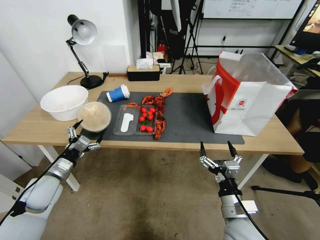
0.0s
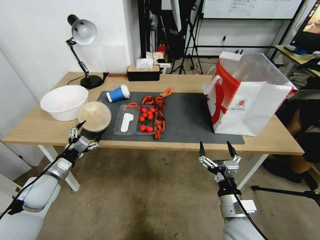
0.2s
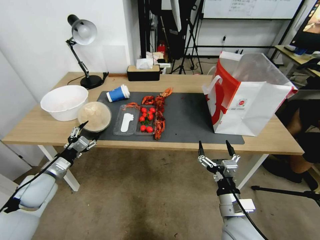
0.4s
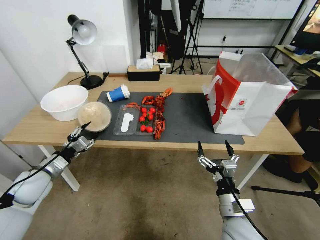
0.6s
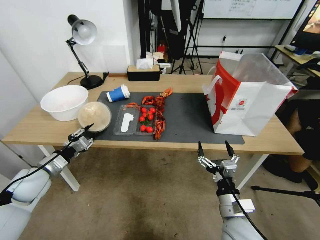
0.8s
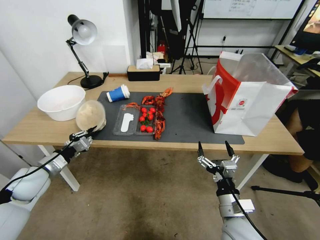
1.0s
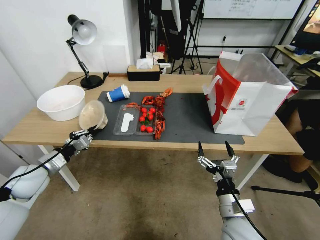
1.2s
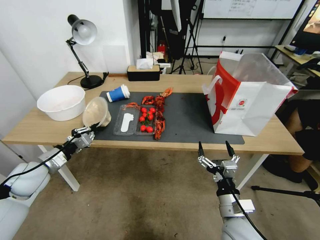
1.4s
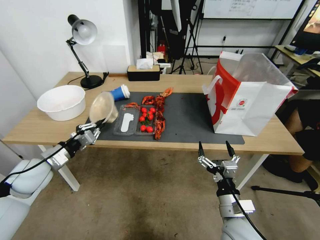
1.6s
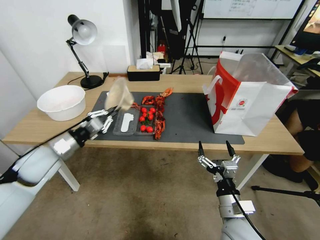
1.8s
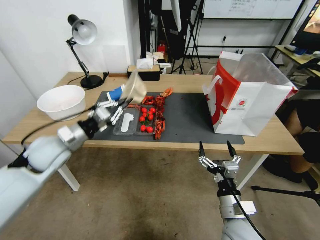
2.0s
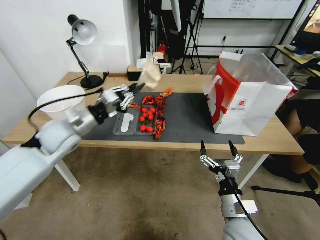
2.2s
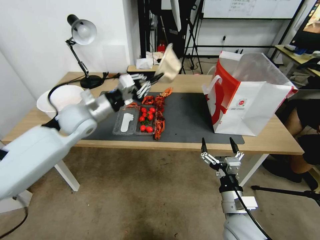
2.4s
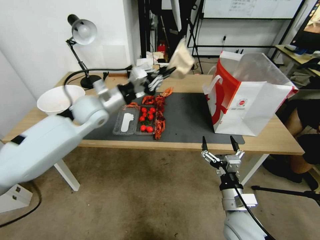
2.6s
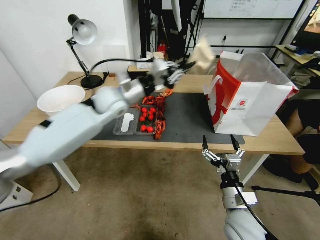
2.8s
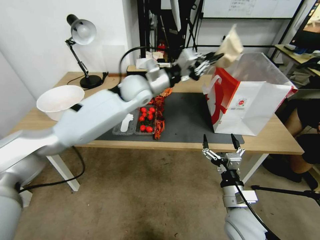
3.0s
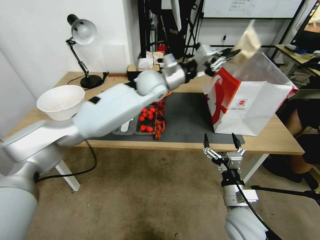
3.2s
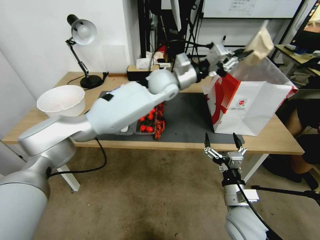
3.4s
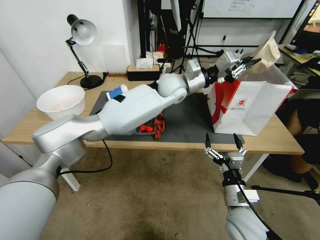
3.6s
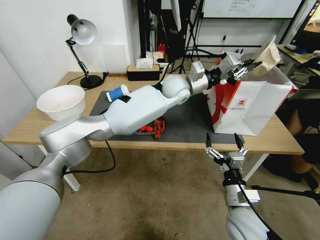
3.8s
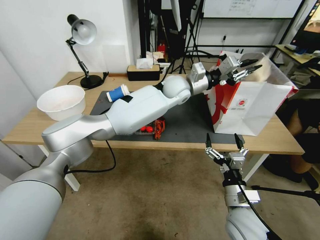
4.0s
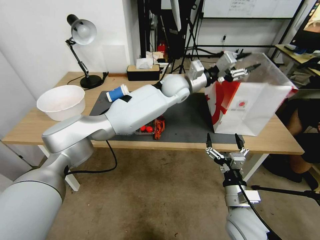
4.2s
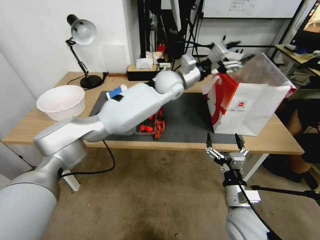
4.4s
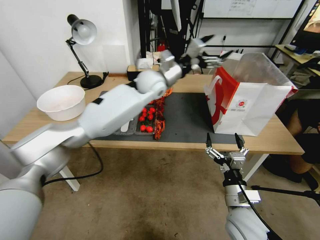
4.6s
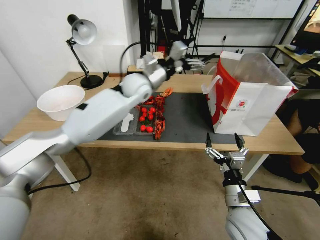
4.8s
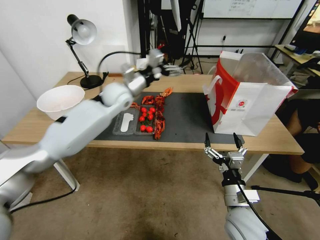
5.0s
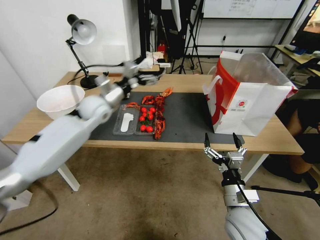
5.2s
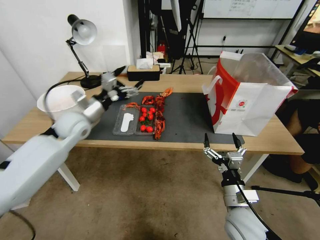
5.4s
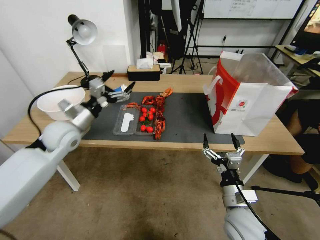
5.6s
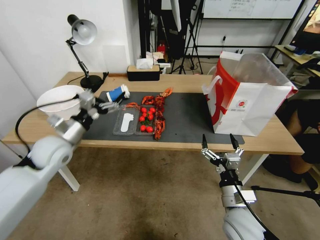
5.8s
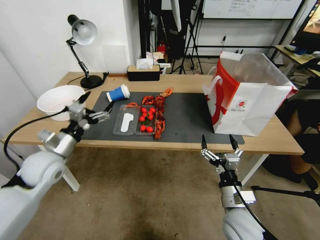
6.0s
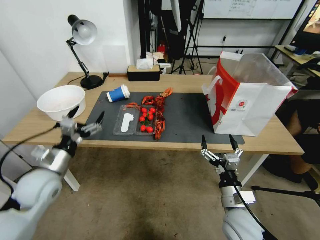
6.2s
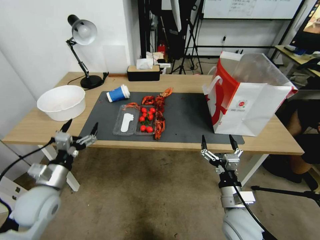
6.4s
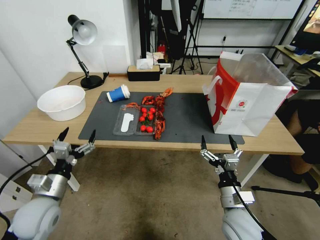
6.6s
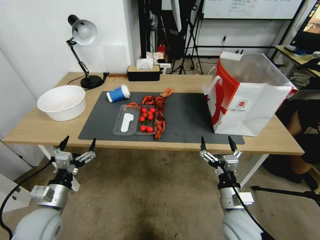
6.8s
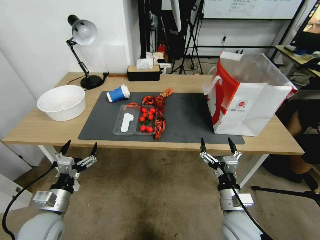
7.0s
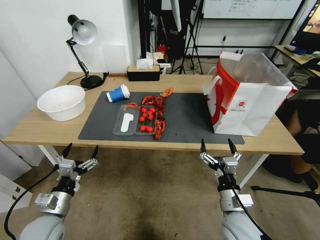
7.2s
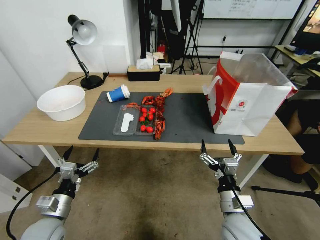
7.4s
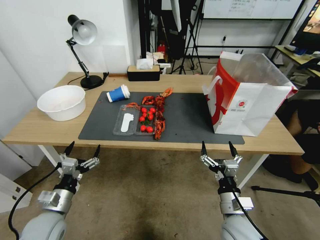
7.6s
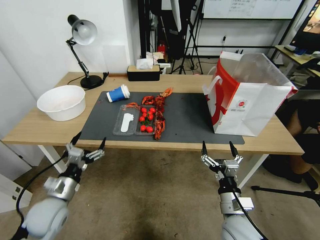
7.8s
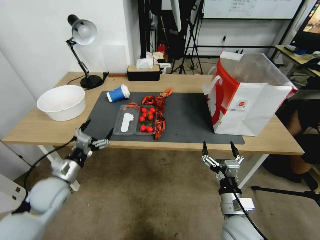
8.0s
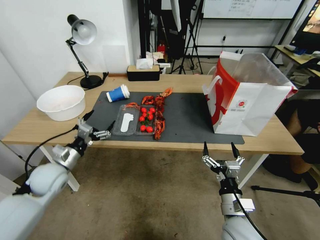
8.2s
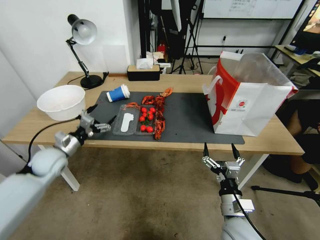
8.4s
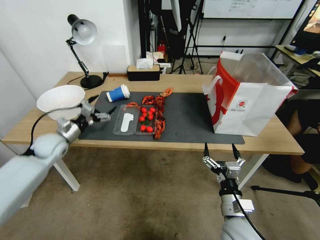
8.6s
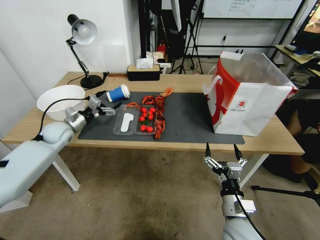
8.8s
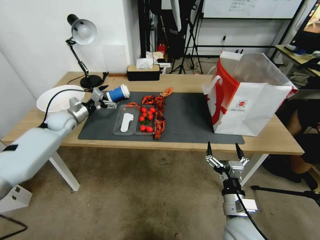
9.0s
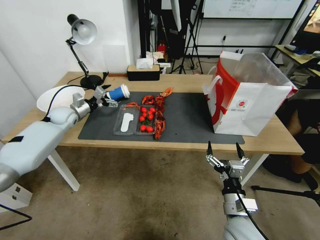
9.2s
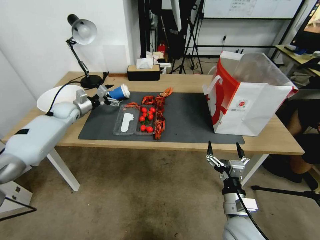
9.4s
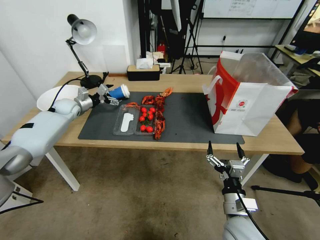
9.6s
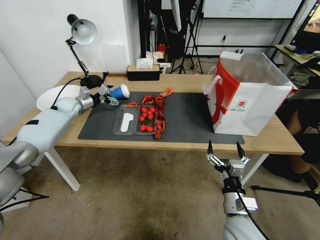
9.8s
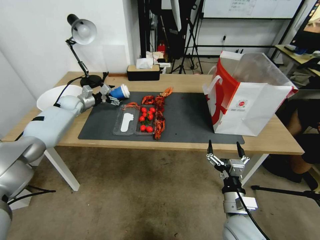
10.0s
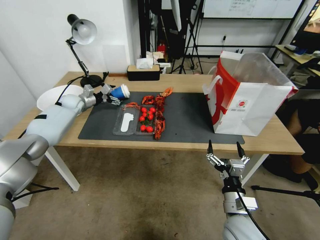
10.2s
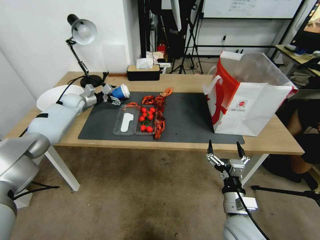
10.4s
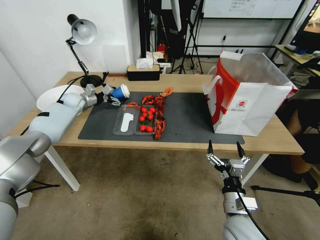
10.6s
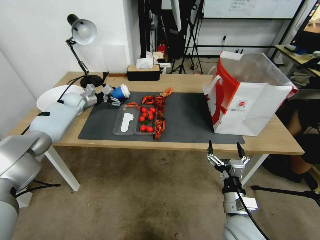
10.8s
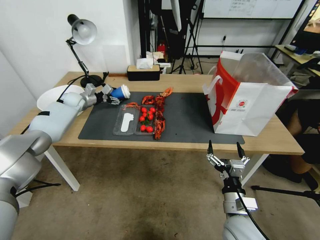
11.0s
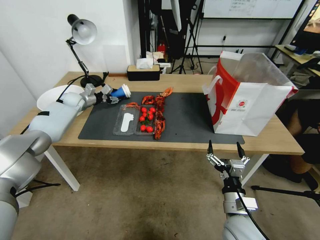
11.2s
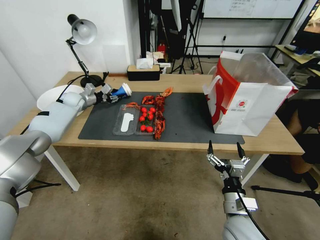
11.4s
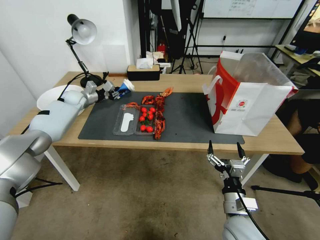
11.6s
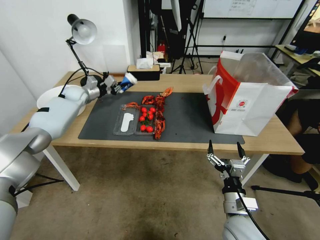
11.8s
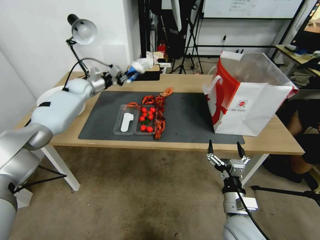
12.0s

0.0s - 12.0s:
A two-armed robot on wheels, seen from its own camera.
0.0s - 1.6s: The left gripper goes roughly 5 cm upward, and closes its fingers.
1.6s - 3.0s: The left gripper is displaced to the right, forward and upward by roughly 40 cm.
3.0s - 4.4s: The left gripper travels to the right by about 15 cm, and opens up.
4.4s - 6.0s: The left gripper goes approximately 40 cm to the left and backward, and opens.
6.0s - 7.6s: The left gripper travels backward and downward by some 20 cm.
7.6s - 9.0s: The left gripper travels forward by roughly 35 cm.
9.0s - 10.4s: The left gripper shifts approximately 10 cm forward.
10.4s - 12.0s: The left gripper is displaced upward and to the right by roughly 10 cm, and closes.

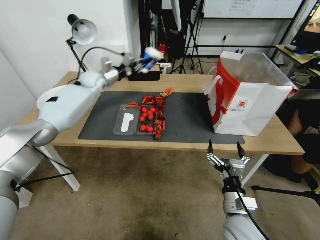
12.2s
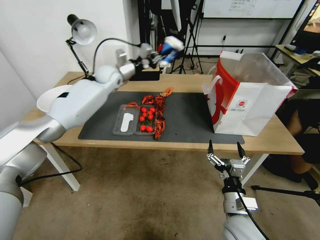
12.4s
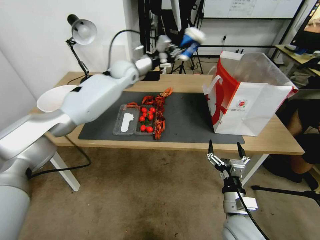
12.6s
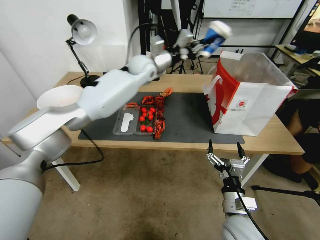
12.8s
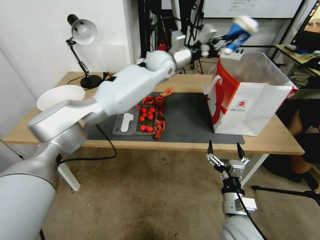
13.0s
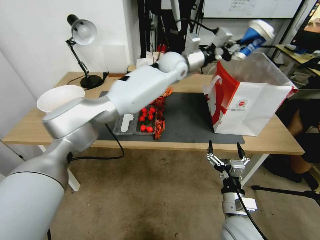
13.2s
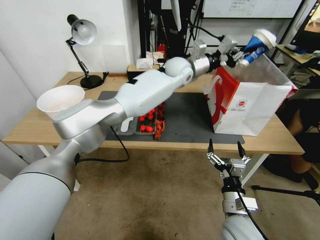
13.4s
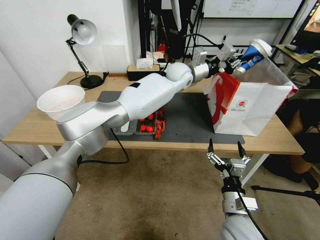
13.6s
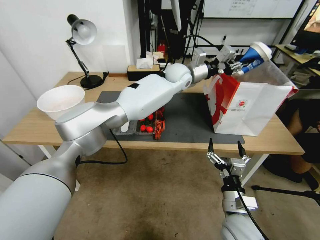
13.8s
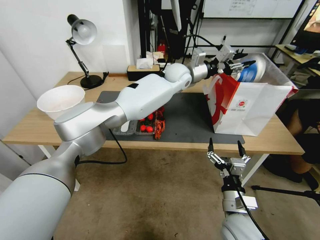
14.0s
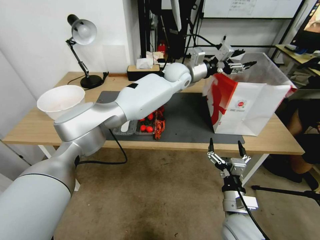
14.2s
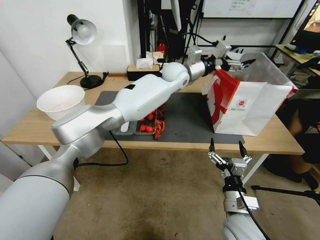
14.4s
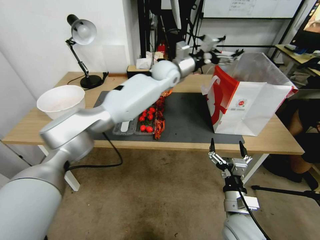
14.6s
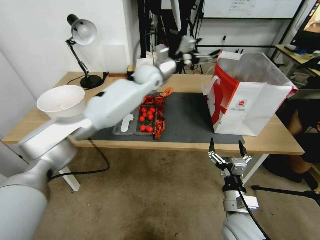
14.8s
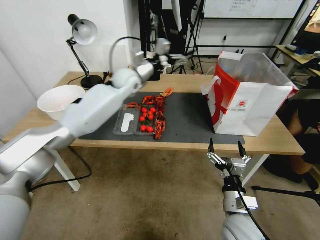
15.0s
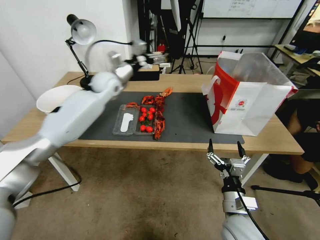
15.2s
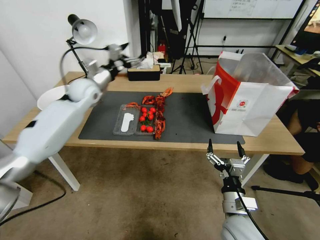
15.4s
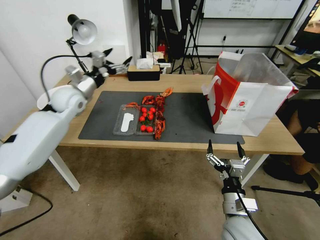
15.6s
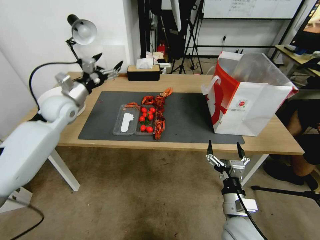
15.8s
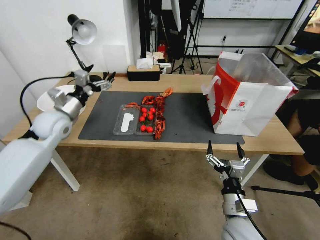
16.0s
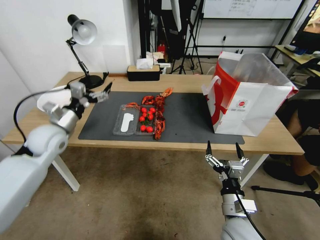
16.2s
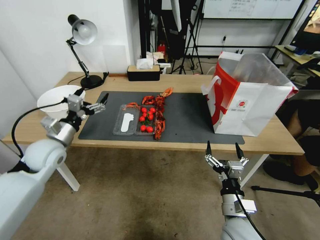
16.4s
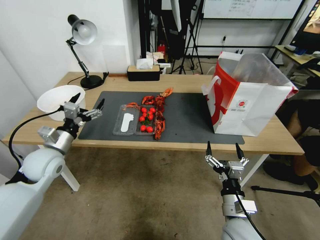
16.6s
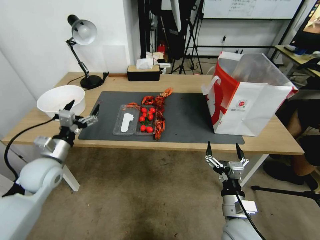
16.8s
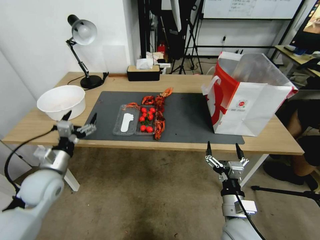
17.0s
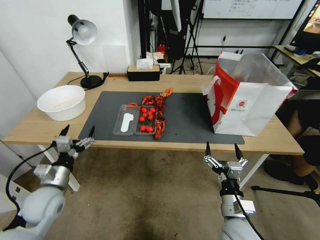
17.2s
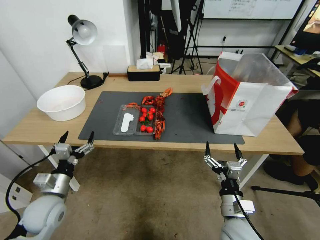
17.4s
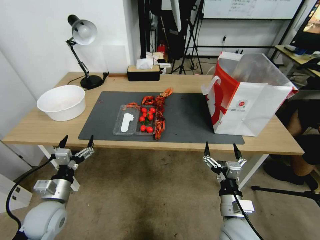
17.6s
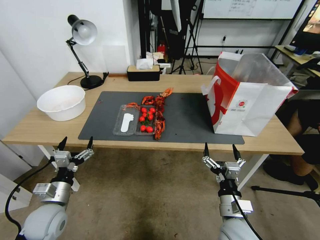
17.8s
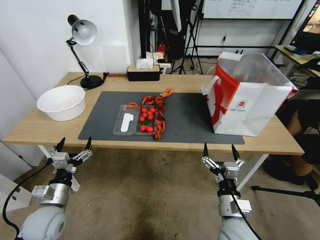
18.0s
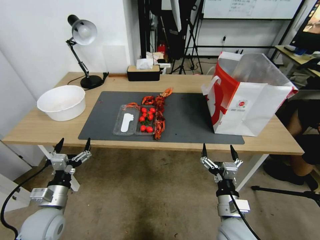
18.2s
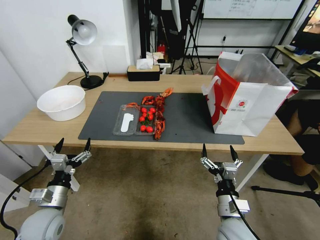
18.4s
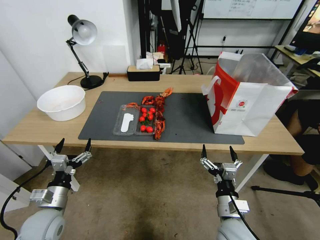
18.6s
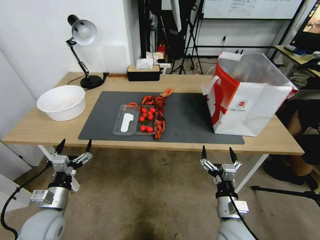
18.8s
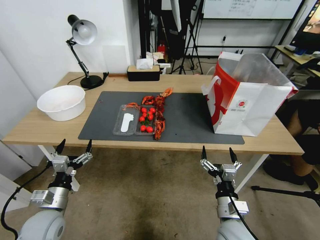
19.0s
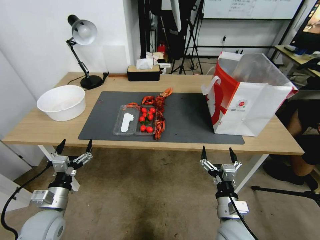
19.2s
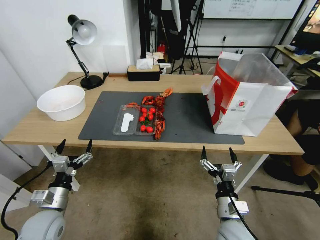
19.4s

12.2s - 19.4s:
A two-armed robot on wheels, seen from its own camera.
12.2s - 13.6s: The left gripper heads to the right, covering roughly 35 cm.
13.6s - 15.0s: The left gripper heads to the left, covering some 20 cm, and opens.
15.0s - 16.6s: The left gripper shifts approximately 35 cm backward, to the left and downward.
16.6s - 18.0s: The left gripper goes about 15 cm backward and downward.
18.0s - 19.4s: Both grippers stay put.

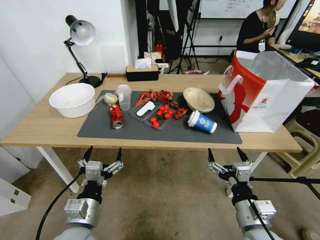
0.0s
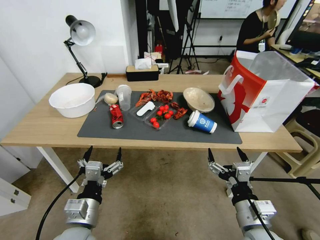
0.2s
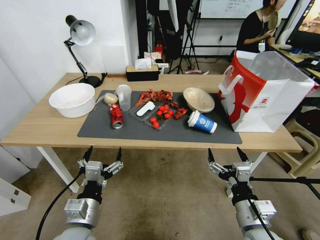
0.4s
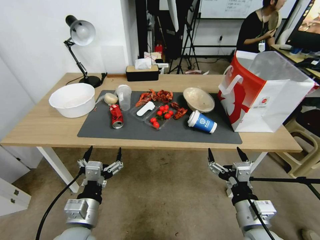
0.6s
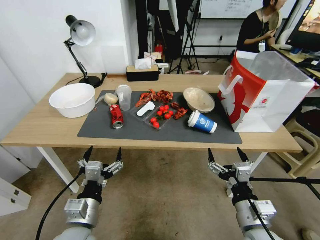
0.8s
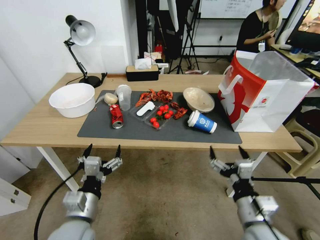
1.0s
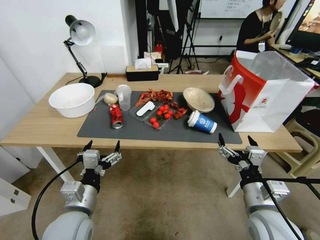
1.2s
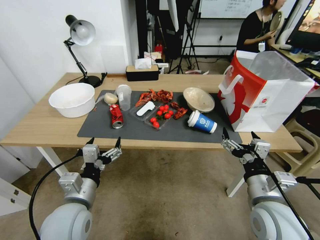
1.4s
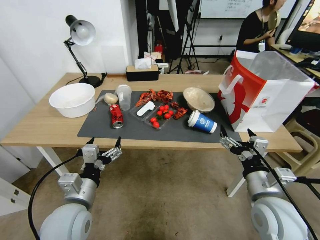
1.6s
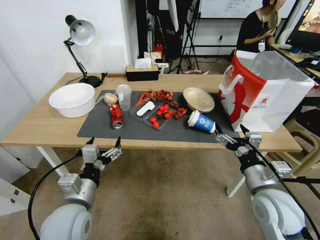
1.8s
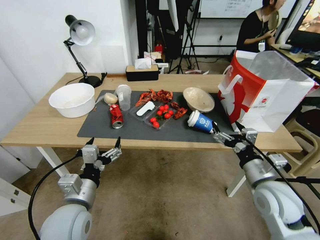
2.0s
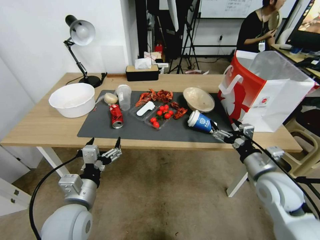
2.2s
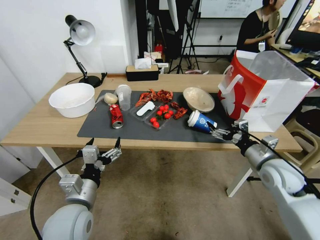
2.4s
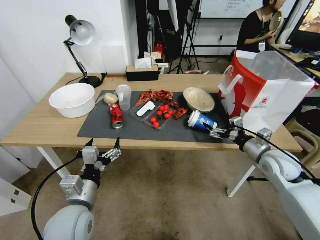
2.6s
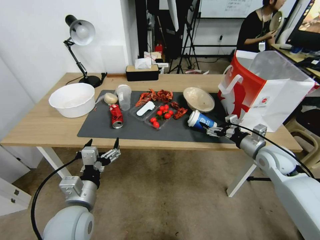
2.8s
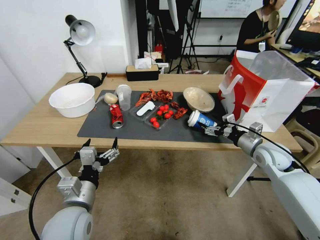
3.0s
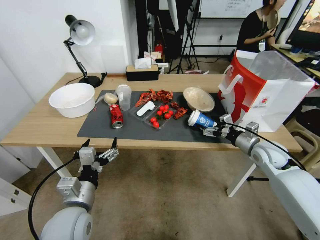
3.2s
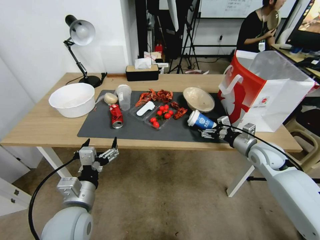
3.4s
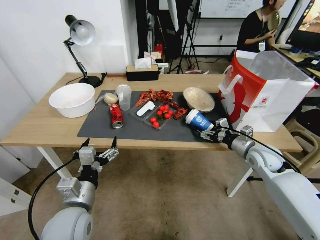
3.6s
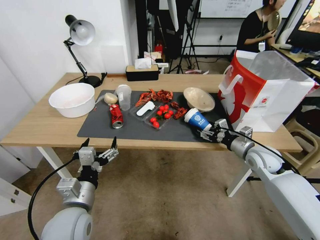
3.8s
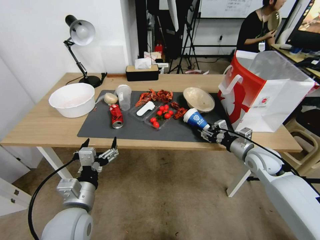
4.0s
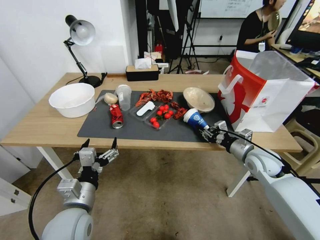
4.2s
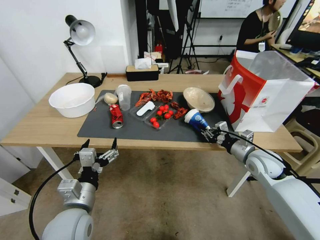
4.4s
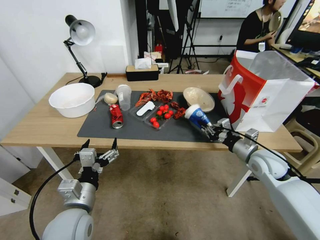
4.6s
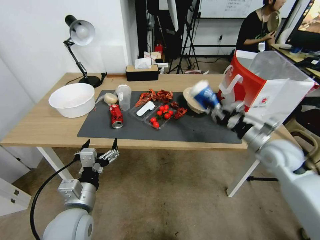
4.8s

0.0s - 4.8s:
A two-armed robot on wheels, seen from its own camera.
1.6s - 3.2s: The right gripper goes some 25 cm forward and to the right.
3.2s - 4.8s: The right gripper is displaced upward by about 5 cm, and closes.
